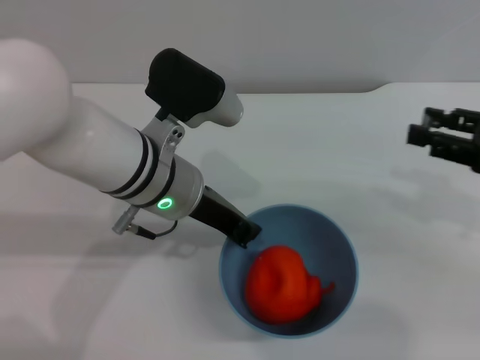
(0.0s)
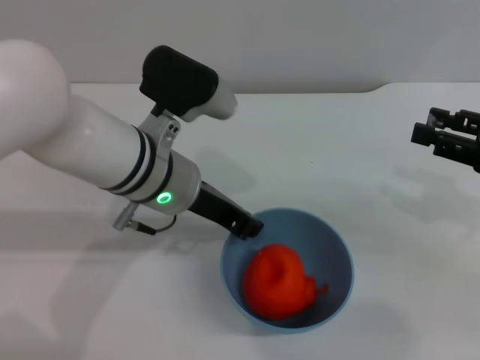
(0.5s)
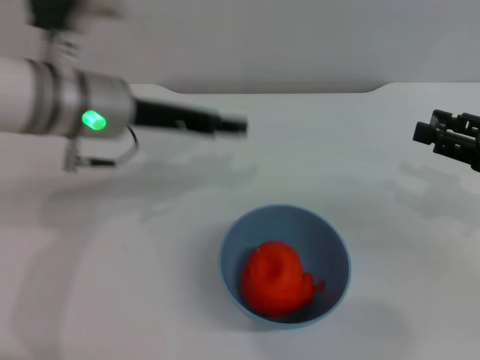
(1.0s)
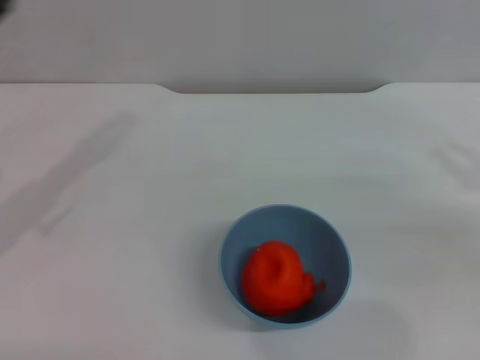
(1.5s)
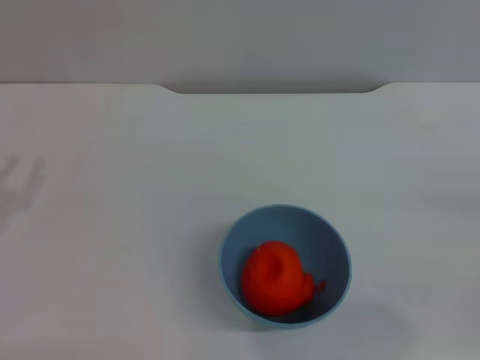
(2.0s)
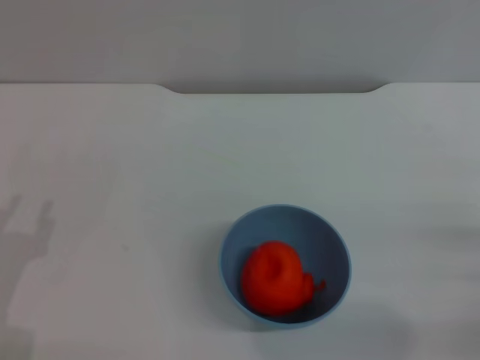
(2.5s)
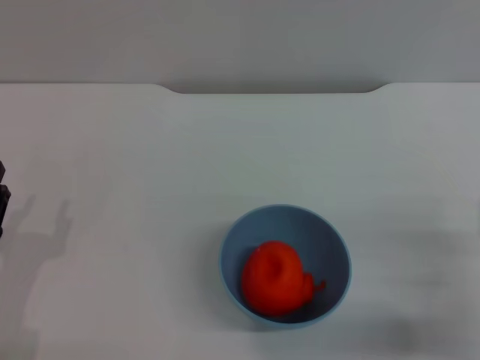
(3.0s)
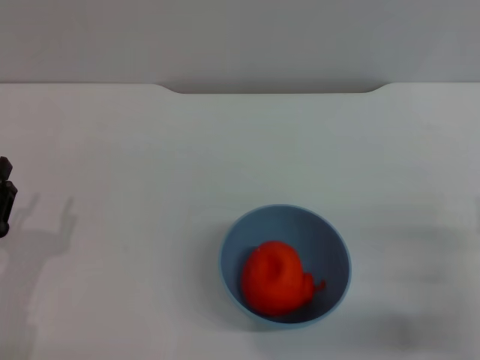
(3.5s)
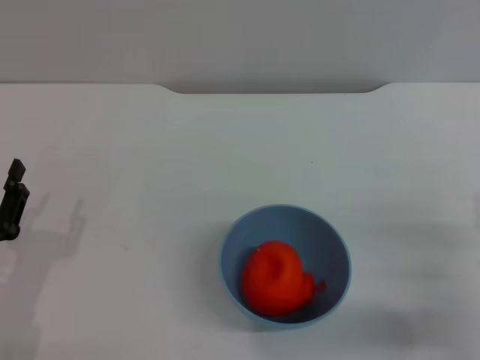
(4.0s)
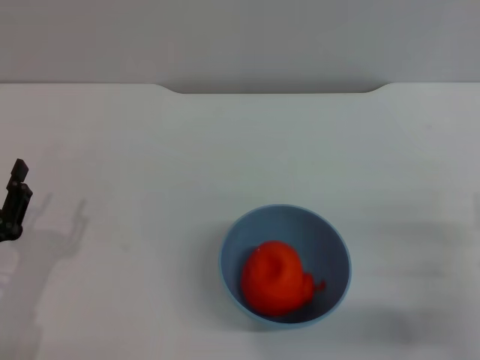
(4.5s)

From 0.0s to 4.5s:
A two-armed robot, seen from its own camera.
Task of the whole recording: put the orange into the blue bowl and pour it out repeatedly.
Step, from 0.0s to 0.5s: Place the bowl on the table.
From 0.0s to 2.0s: The left gripper goes approximately 25 cm to the left, and opens its fingers. Meanwhile the right gripper goes roughly 15 cm to the right, downward and backward.
From 2.0s to 4.5s: The right gripper goes approximately 15 cm to the left and downward; the left gripper moves to the right and downward, roughly 10 cm.
